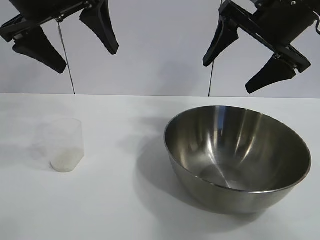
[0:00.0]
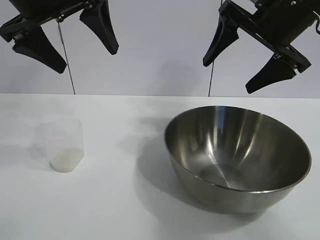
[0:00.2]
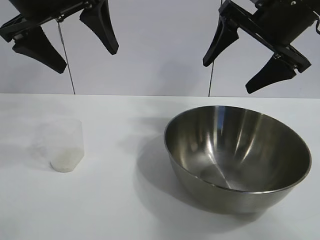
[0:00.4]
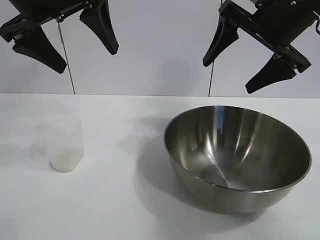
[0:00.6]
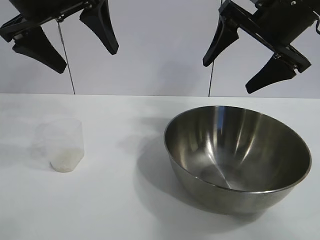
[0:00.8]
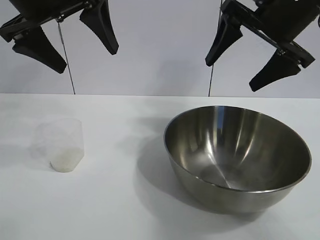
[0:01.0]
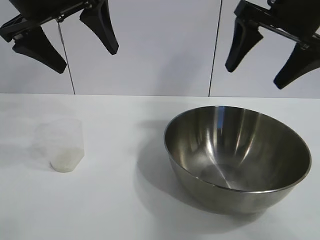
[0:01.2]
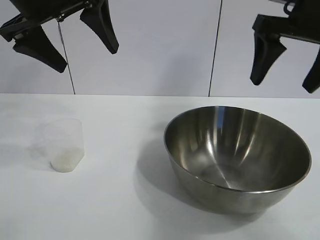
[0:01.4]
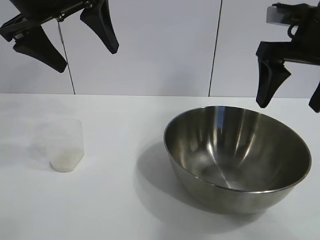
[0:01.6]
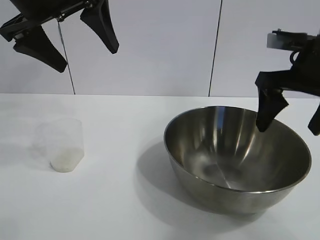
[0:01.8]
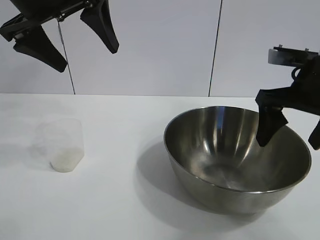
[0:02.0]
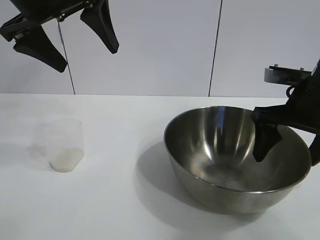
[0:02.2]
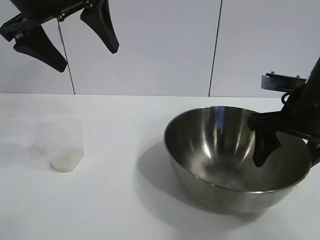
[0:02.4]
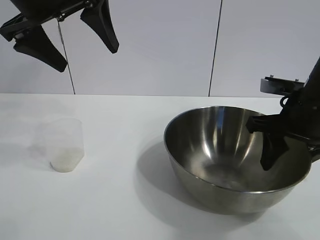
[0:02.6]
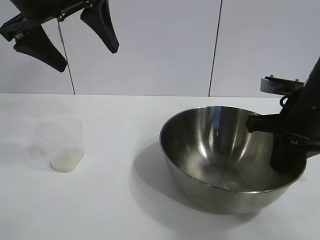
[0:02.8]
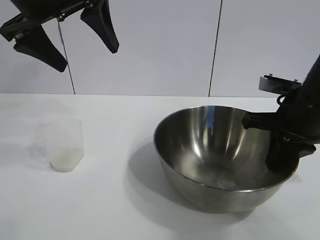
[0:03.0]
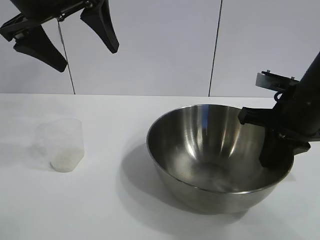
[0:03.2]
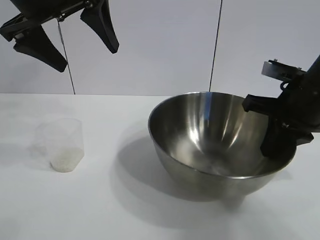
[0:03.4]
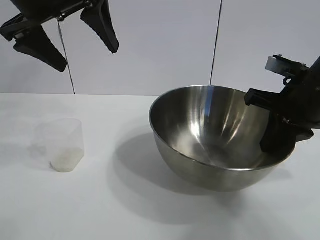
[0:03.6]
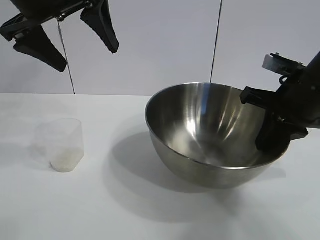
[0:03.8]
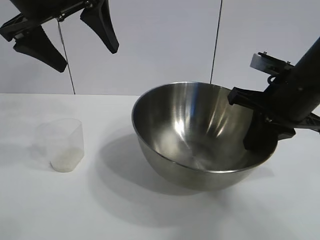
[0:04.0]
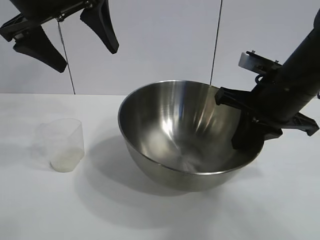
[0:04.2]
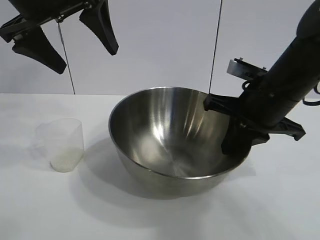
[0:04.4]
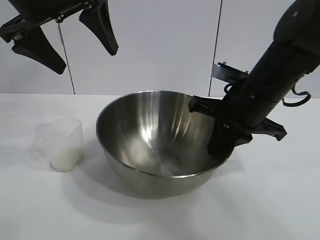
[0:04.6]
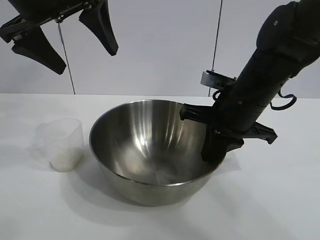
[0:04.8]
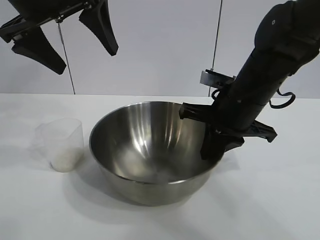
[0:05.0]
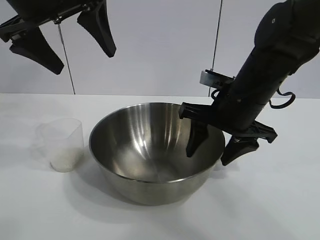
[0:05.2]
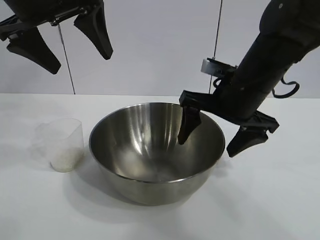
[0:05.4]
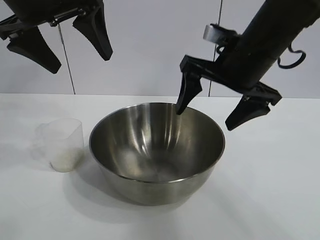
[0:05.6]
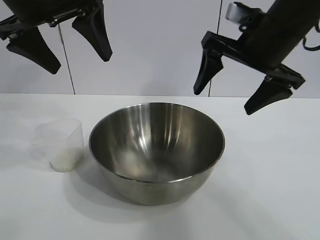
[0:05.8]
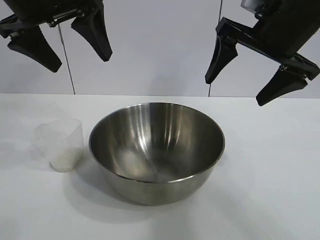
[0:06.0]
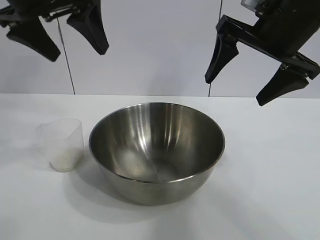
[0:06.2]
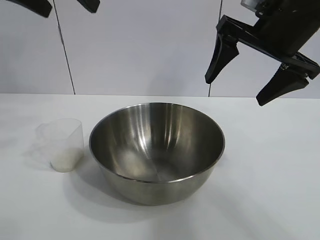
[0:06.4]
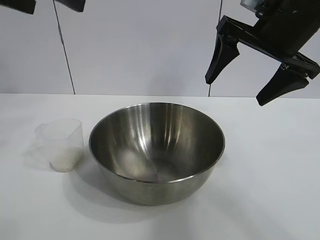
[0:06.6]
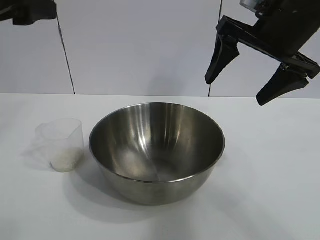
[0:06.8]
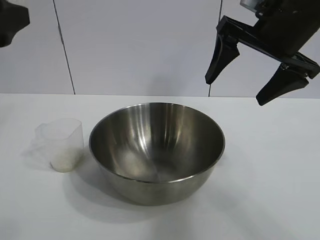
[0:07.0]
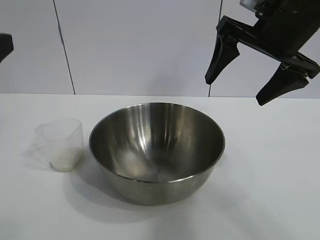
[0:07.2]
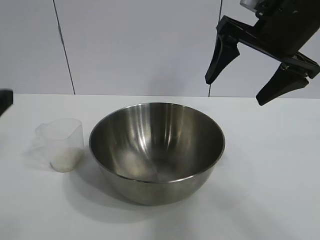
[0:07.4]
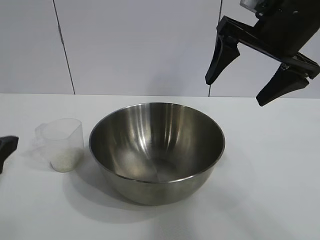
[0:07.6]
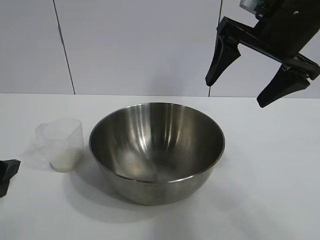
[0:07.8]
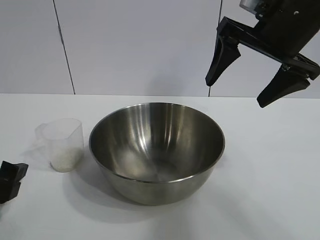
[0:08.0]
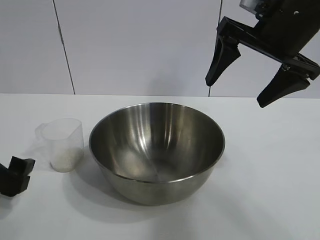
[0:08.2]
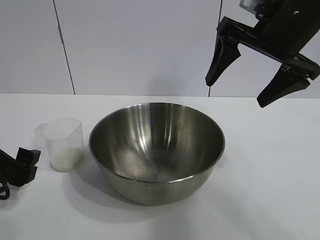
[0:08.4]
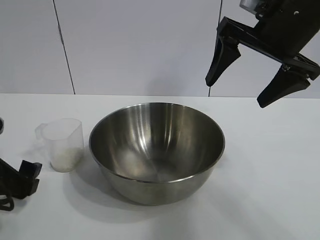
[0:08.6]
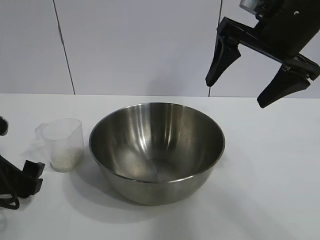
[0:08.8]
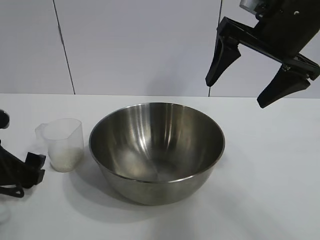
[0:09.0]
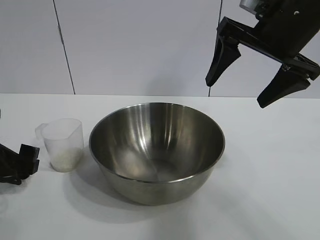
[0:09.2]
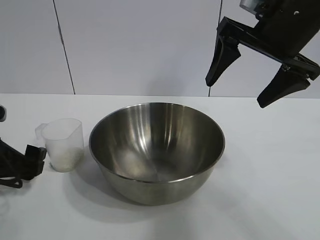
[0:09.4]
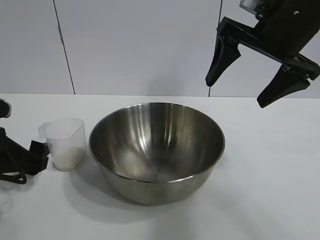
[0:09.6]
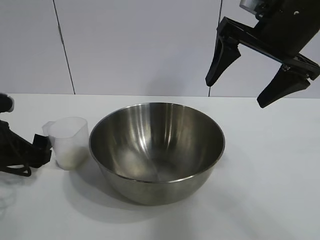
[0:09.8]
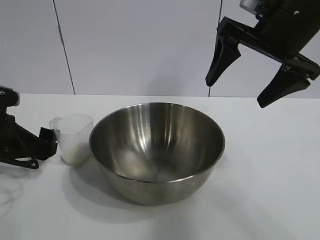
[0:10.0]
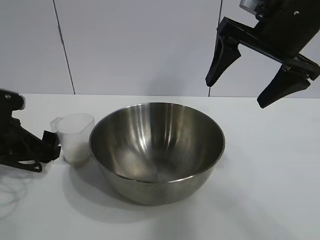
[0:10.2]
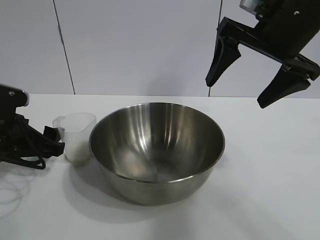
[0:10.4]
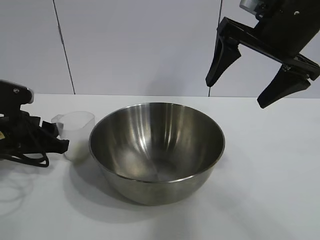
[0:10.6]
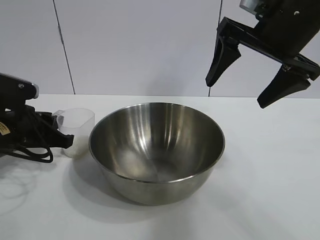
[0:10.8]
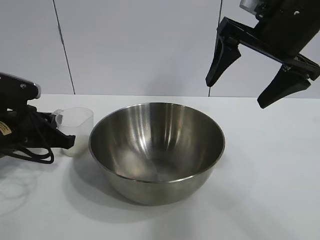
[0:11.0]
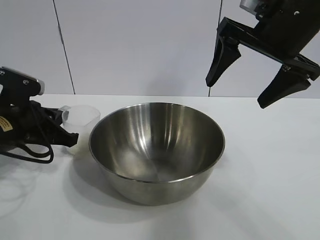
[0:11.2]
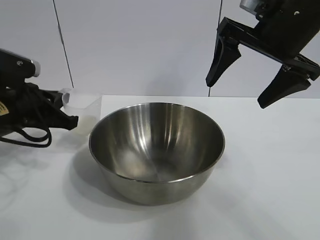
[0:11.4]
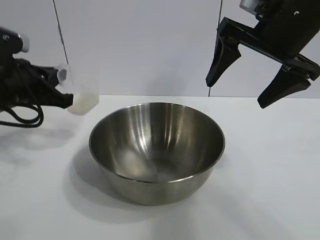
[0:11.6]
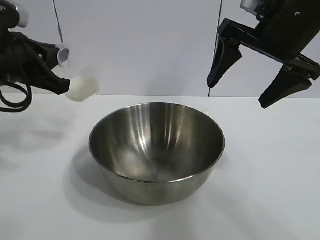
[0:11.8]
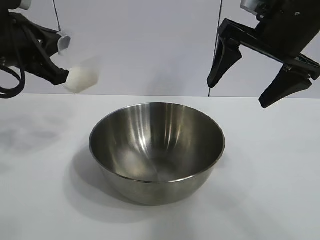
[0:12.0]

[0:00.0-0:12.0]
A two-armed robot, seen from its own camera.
Task of the whole recording: the right gripper grasp the rice container and place it in the center of the table, the left gripper grasp the rice scoop and pour the rice into the rice container.
Step, 0:01.0 to 0:05.0: Move the bowl in the center of view with right gripper.
Step, 0:05.4 to 0:11.0: Grasp the cup with rice in it with left gripper.

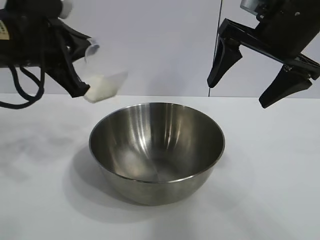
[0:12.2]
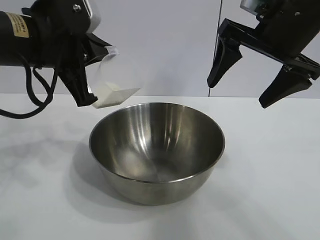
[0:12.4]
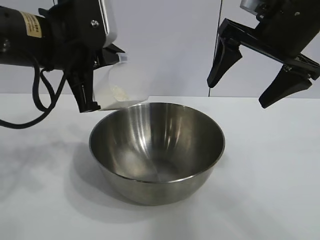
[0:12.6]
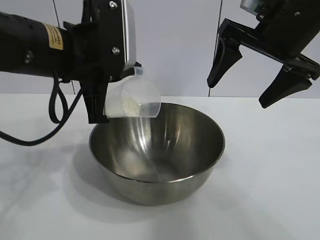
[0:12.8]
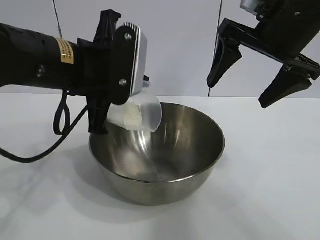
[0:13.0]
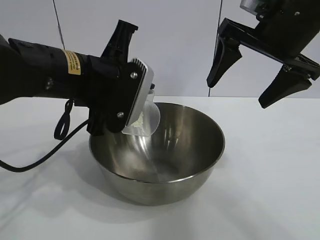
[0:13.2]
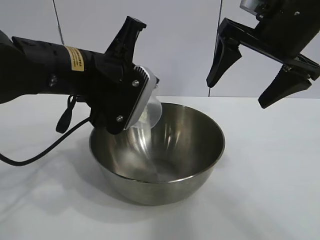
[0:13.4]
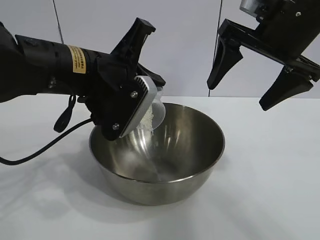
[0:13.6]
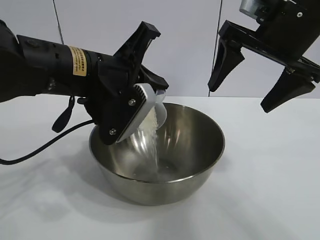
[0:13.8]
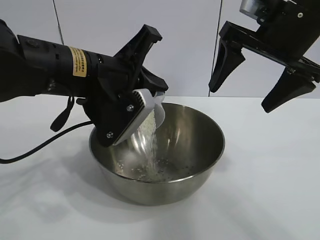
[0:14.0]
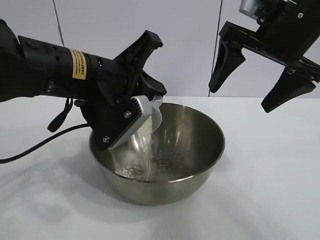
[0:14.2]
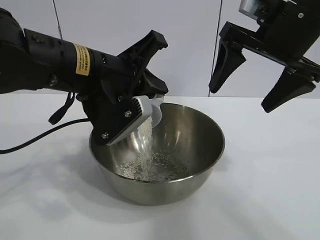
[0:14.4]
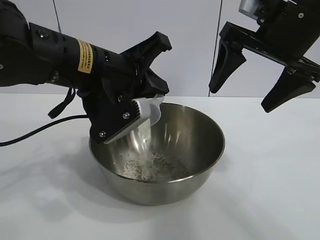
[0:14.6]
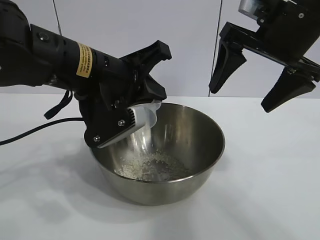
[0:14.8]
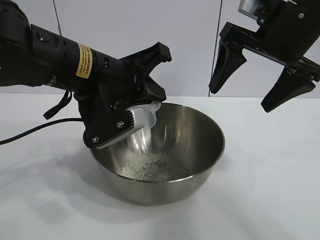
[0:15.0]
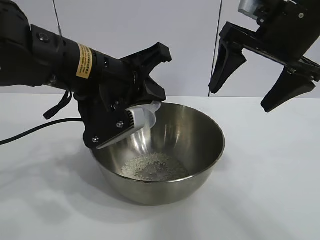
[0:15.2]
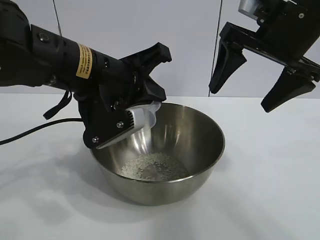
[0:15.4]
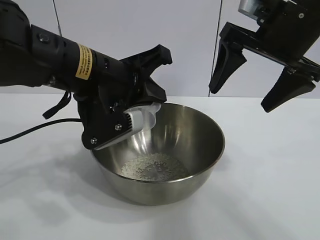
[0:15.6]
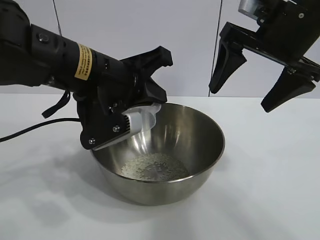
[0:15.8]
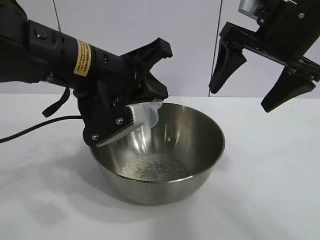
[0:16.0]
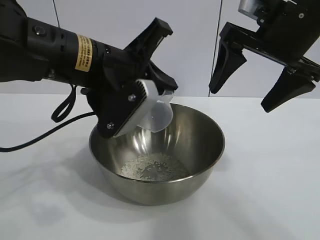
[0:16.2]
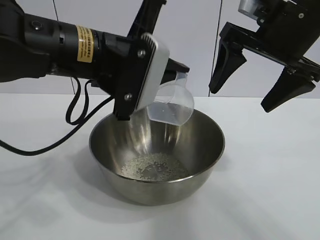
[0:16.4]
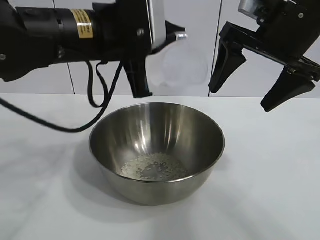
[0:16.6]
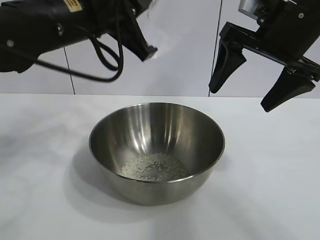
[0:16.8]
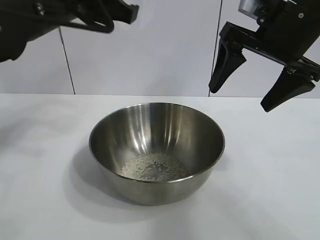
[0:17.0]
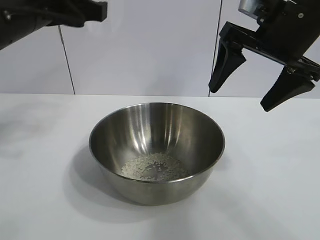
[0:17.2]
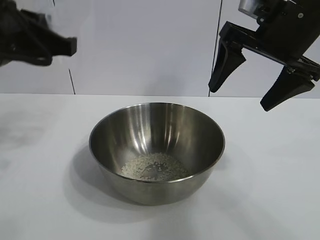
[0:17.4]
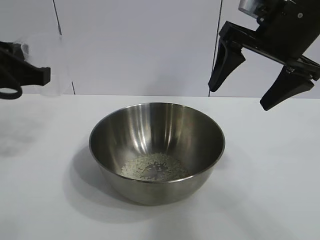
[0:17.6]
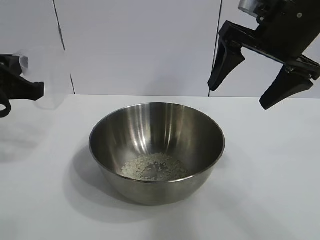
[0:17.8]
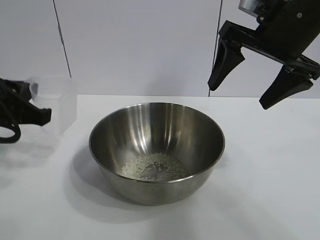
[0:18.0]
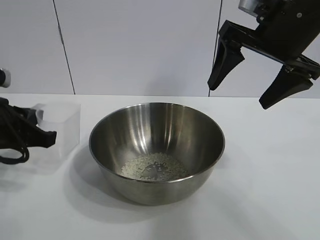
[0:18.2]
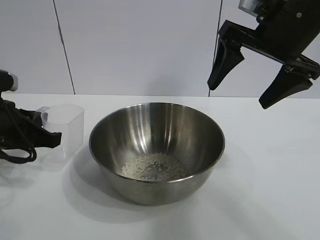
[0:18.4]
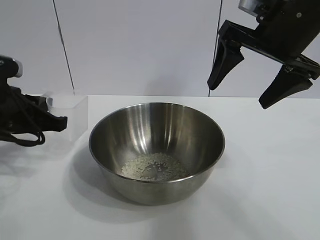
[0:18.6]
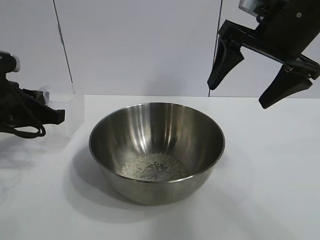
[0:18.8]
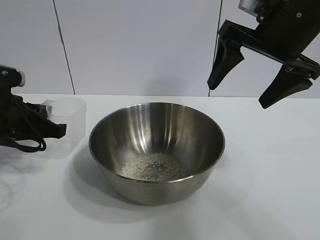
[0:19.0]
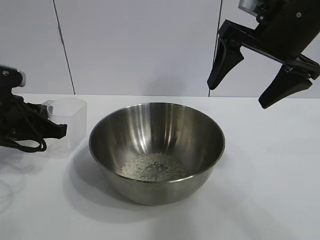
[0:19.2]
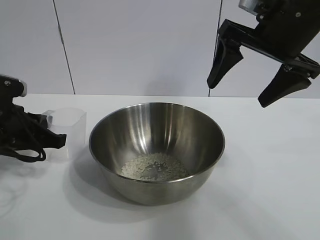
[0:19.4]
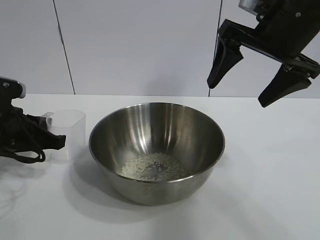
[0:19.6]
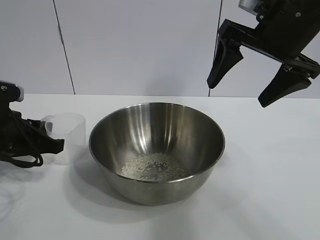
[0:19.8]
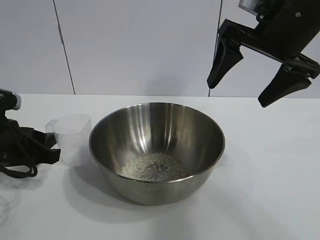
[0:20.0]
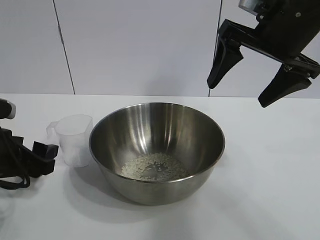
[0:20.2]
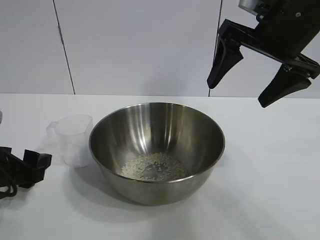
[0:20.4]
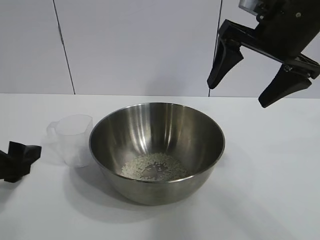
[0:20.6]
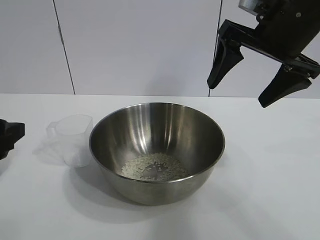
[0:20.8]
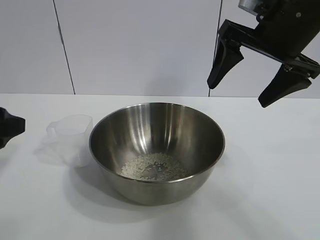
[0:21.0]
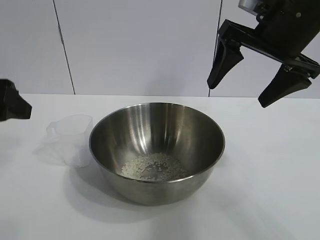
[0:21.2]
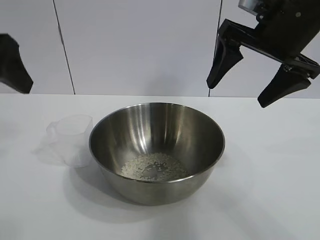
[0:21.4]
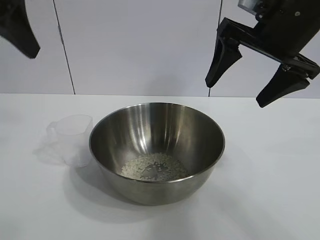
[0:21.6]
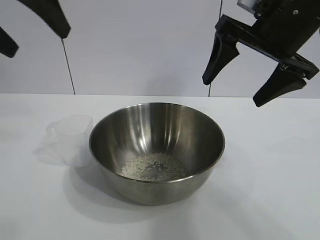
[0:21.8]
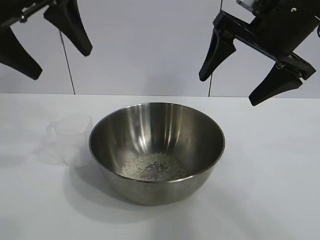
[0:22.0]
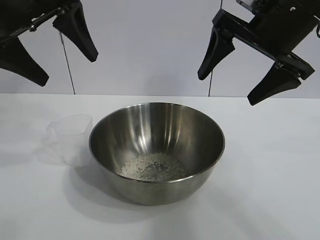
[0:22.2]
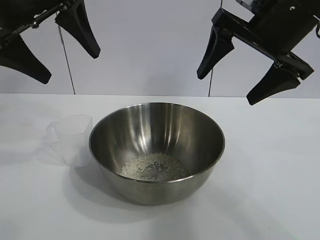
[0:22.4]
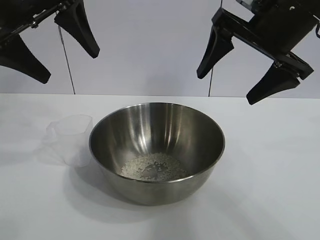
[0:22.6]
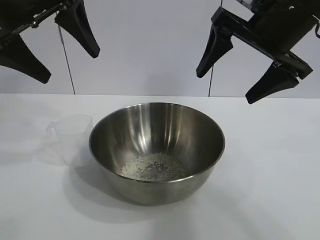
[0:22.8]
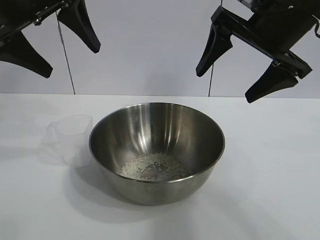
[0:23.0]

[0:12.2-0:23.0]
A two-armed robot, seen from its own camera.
Task of the whole recording: the right gripper grasp the rice container and place it in the center of the table, the left gripper grasp the rice scoop and pour the rice into the rice container.
Step, 0:12.2 to 0:15.8: Pour the rice from the cup into the bowl with the left gripper.
Step, 0:16.2 to 0:19.8: Place the cup on the table with the left gripper.
